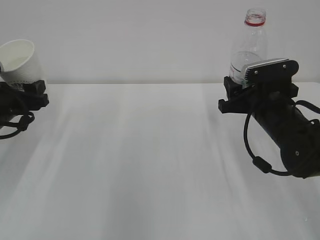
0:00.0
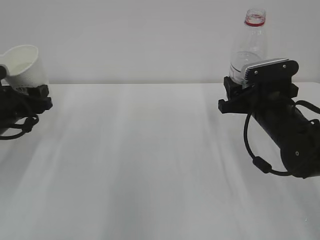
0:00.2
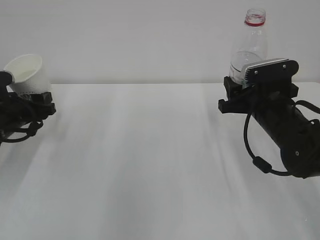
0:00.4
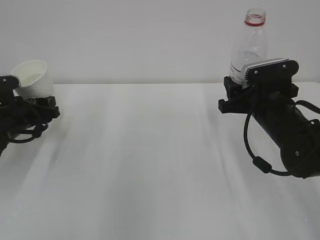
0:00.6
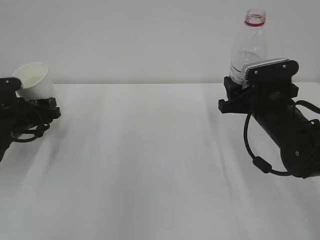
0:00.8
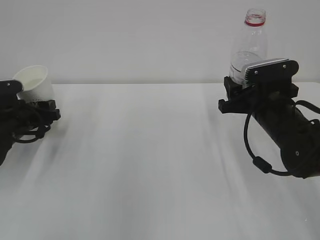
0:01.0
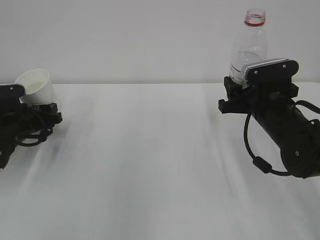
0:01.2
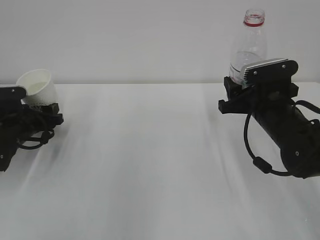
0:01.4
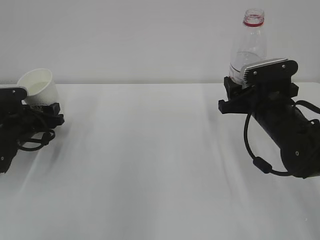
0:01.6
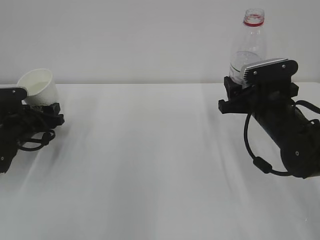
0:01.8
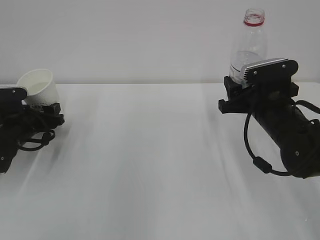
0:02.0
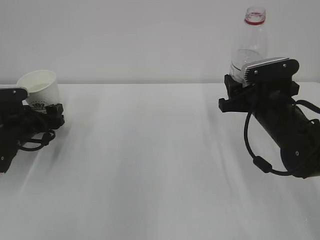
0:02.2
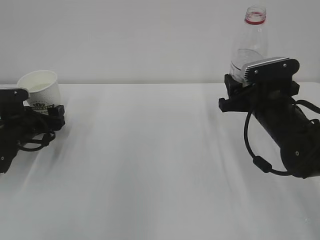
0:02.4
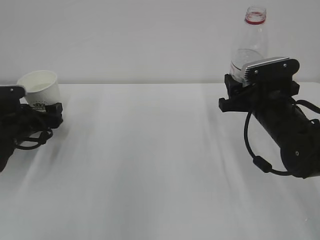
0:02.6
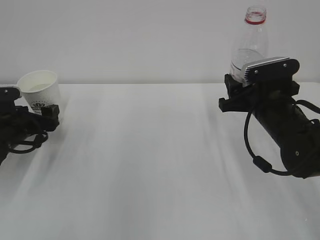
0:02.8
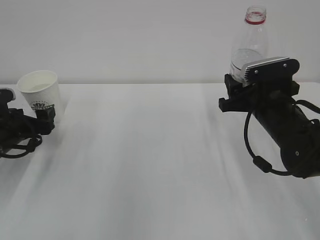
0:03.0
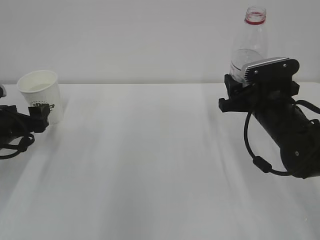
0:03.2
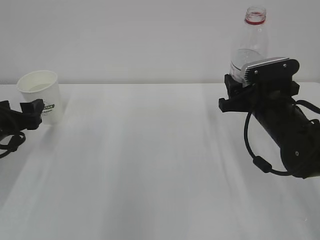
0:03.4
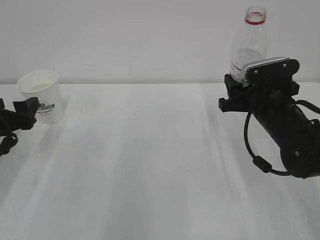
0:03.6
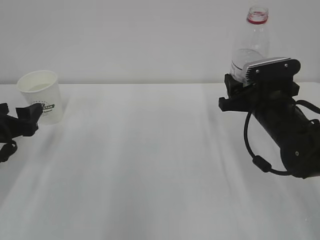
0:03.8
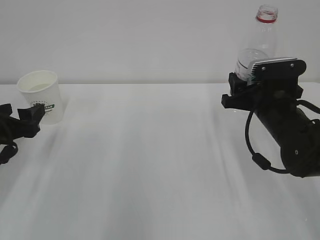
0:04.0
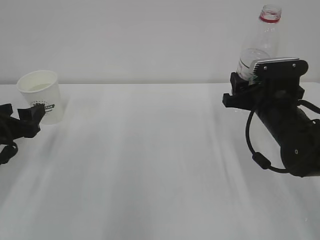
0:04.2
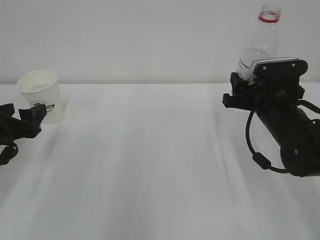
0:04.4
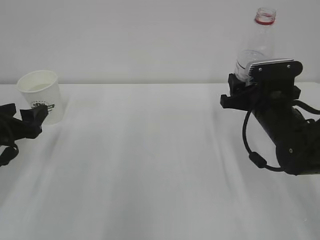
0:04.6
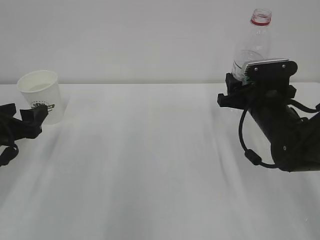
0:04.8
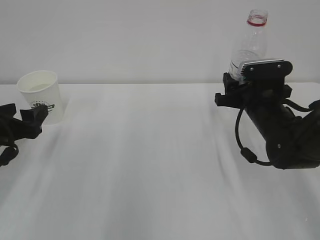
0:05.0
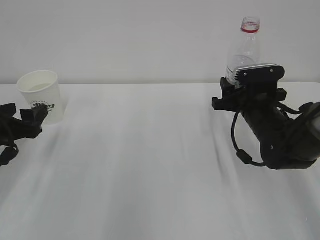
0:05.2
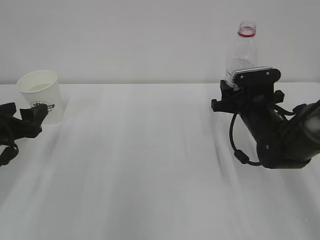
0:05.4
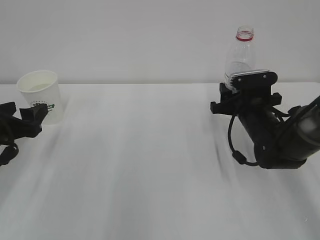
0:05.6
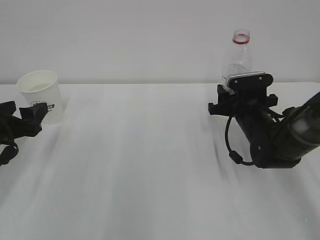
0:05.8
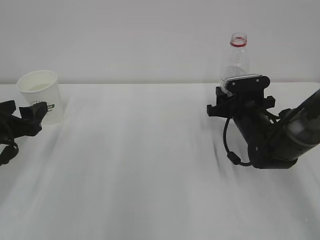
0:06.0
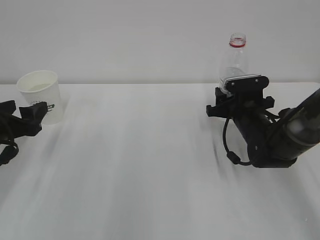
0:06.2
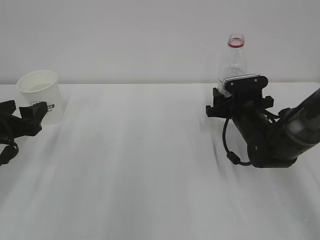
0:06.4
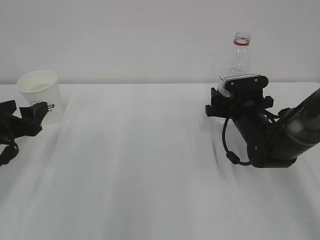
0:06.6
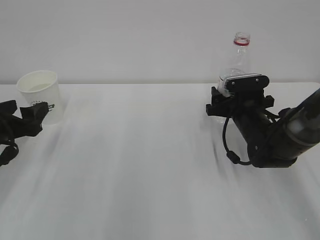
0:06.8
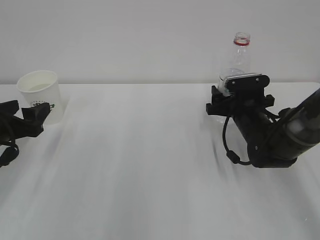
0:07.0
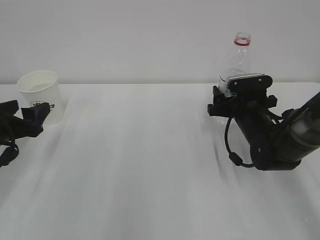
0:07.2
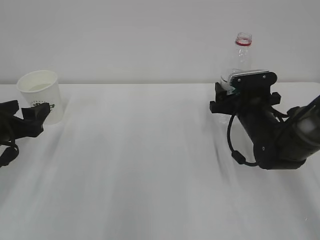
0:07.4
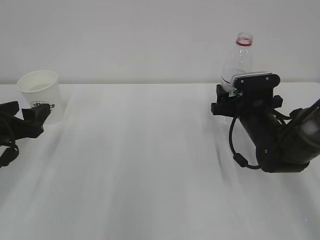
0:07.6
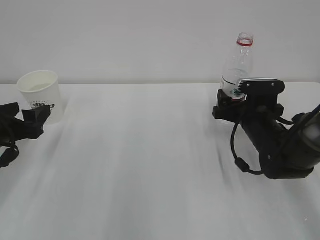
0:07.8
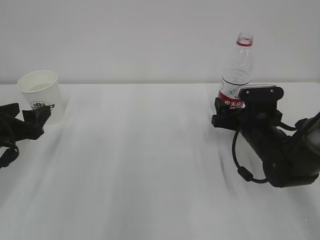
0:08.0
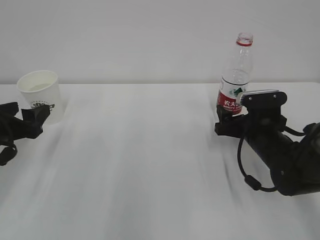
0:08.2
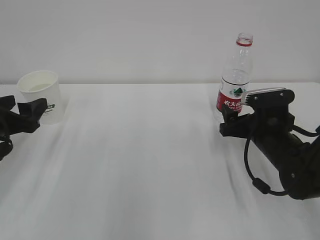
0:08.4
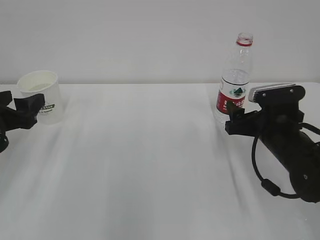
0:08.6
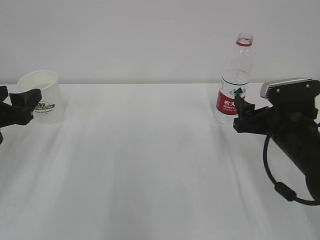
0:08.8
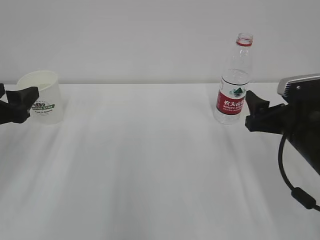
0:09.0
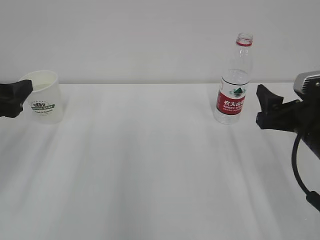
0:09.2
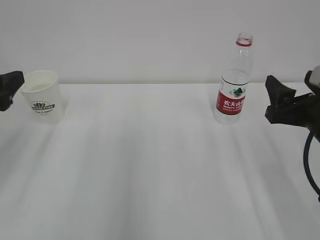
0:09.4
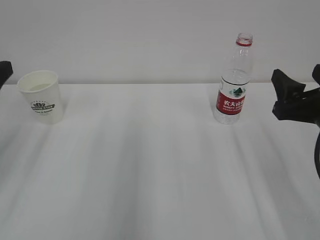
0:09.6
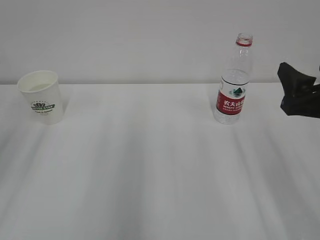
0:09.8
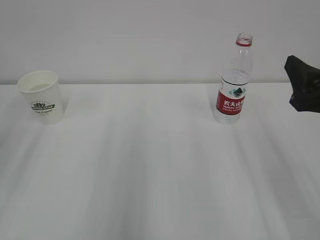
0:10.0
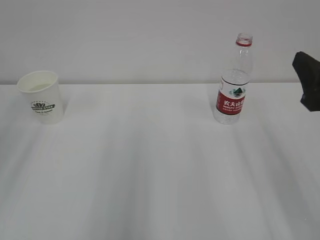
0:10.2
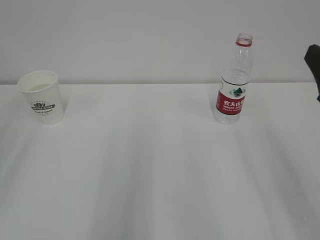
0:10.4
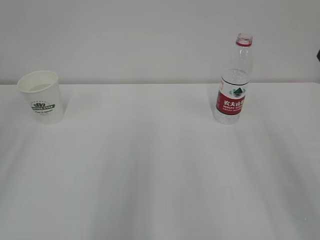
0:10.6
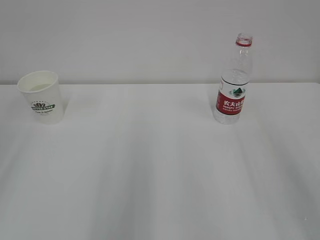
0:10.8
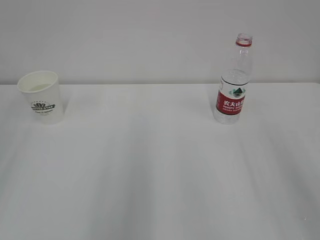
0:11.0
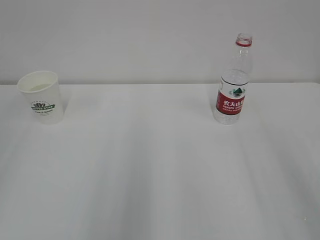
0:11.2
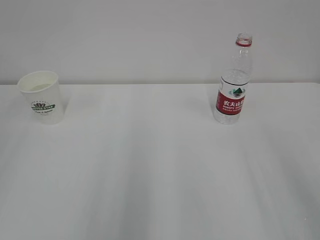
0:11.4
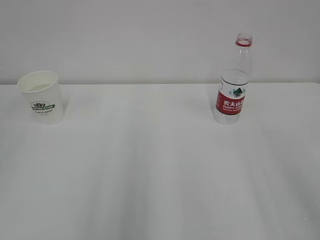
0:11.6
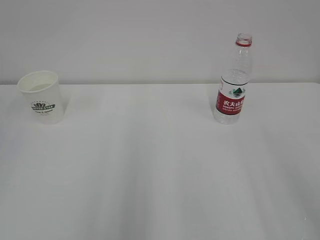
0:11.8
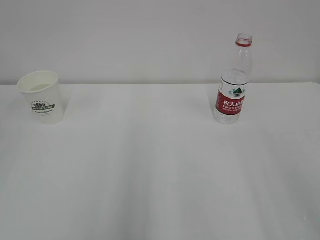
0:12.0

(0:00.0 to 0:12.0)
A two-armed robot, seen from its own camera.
0:00.0 - 0:01.6: The left gripper moves downward, approximately 10 cm.
0:01.6 - 0:03.0: The left gripper opens.
0:03.0 - 0:04.4: The left gripper heads backward, covering about 5 cm.
0:04.4 - 0:06.0: The right gripper goes some 10 cm downward and forward.
0:06.0 - 0:07.6: The right gripper opens.
0:07.6 - 0:09.0: The left gripper ends up some 5 cm from where it was, while the right gripper is displaced backward and upward by roughly 10 cm.
0:09.0 - 0:10.4: Both grippers move upward and backward, about 15 cm.

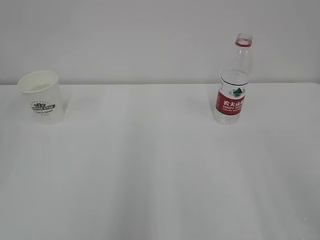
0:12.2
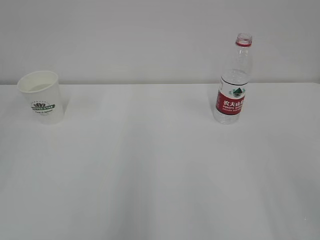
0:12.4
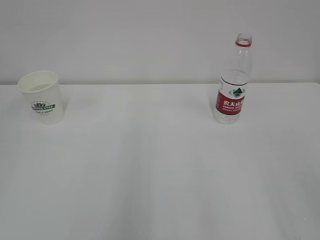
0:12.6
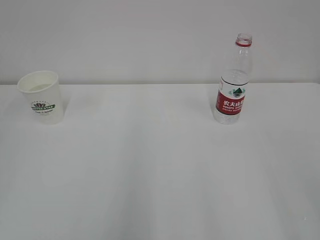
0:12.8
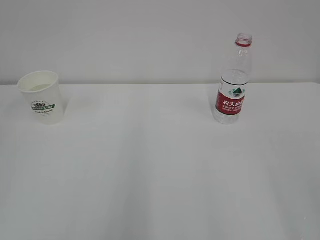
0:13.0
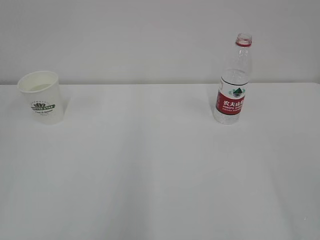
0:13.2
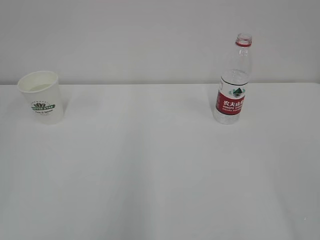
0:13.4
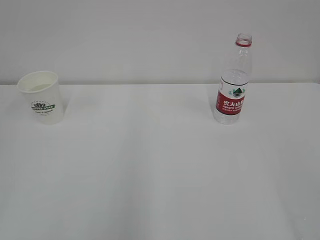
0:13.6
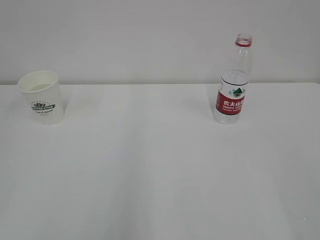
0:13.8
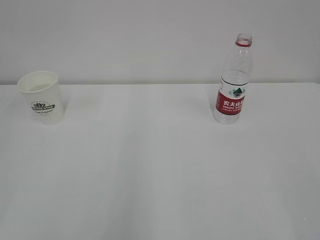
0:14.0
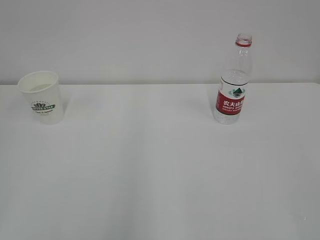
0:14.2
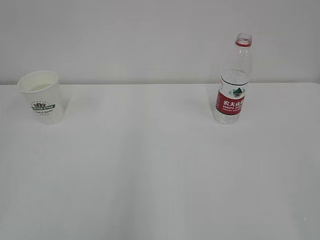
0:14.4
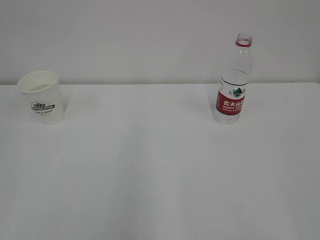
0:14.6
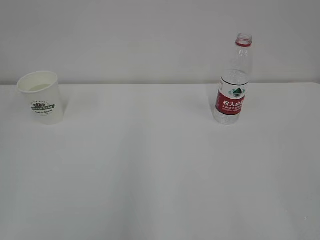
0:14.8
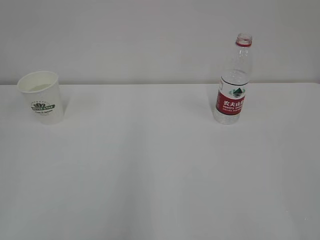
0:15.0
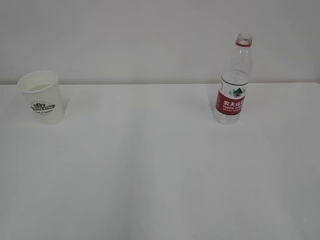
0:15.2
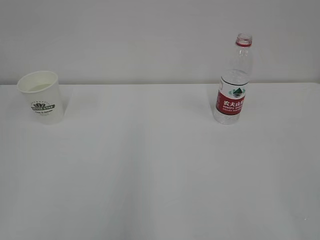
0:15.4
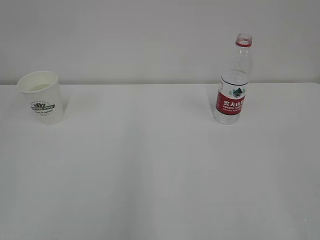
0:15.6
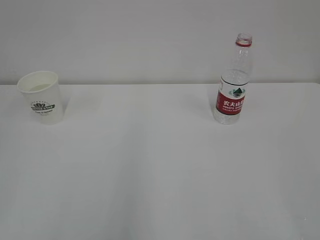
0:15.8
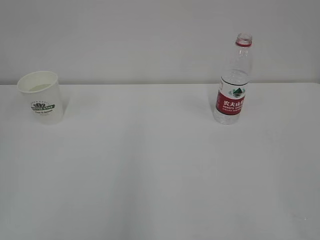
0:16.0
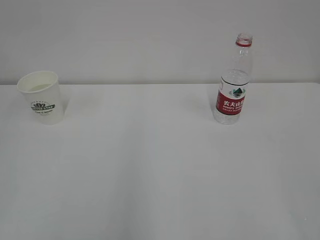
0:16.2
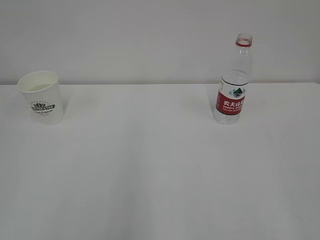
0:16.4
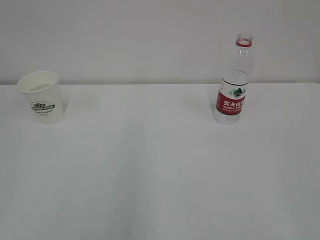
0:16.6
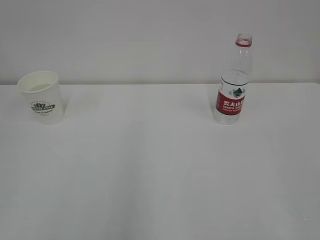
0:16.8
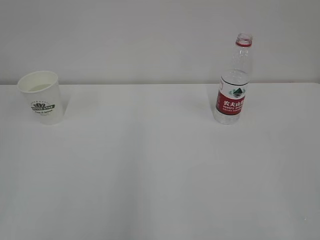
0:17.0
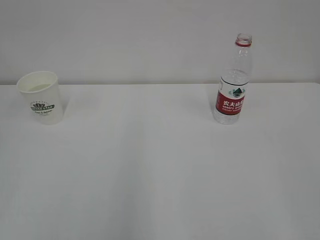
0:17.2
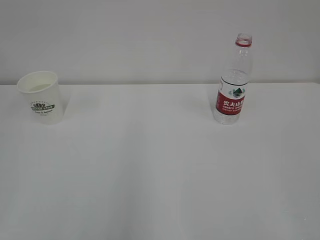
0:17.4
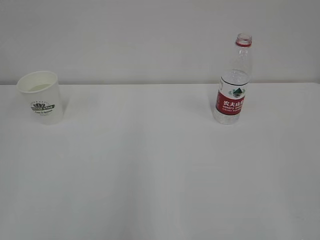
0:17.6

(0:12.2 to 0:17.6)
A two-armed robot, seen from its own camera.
0:15.0 - 0:16.2: Neither gripper changes place.
0:16.2 - 0:17.6: Neither gripper changes place.
